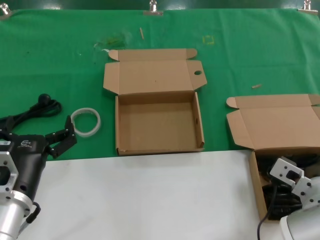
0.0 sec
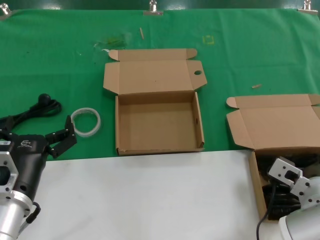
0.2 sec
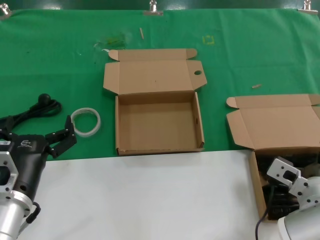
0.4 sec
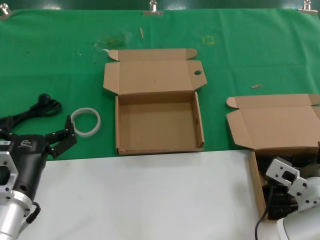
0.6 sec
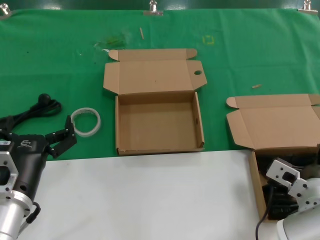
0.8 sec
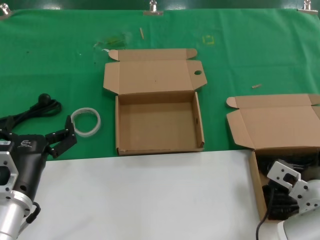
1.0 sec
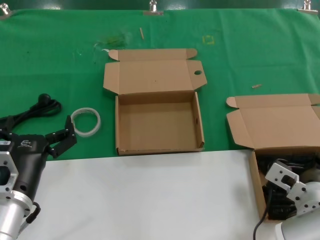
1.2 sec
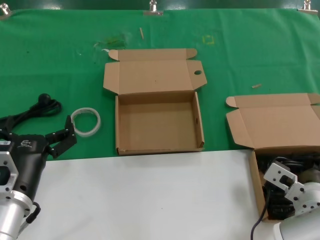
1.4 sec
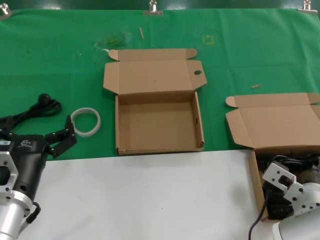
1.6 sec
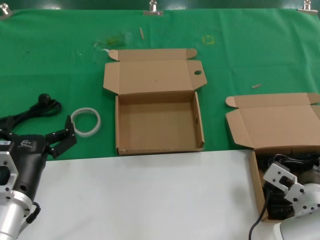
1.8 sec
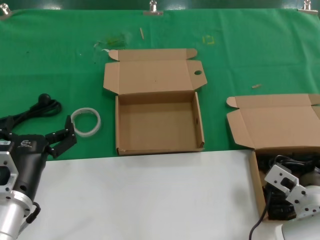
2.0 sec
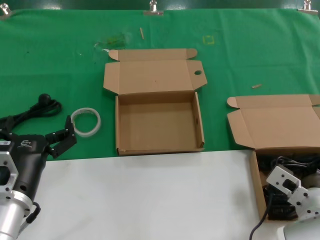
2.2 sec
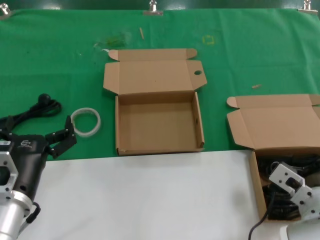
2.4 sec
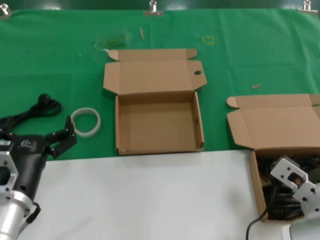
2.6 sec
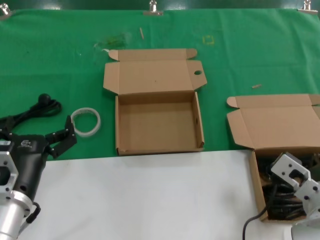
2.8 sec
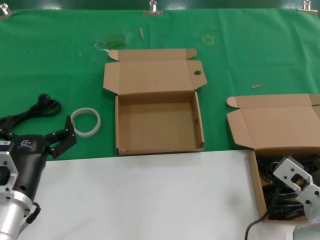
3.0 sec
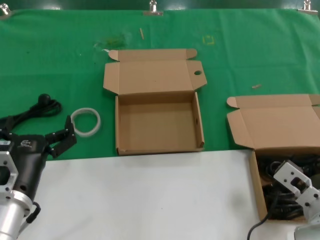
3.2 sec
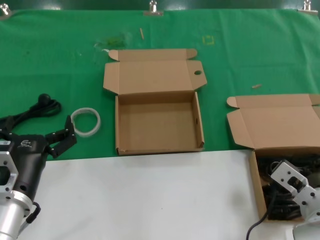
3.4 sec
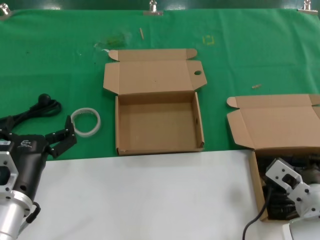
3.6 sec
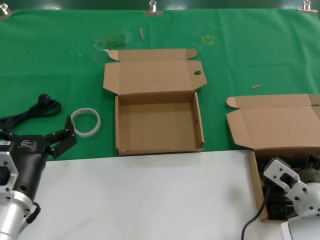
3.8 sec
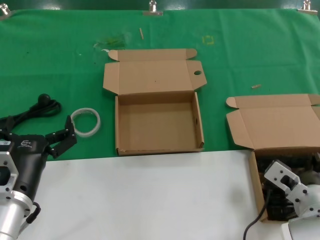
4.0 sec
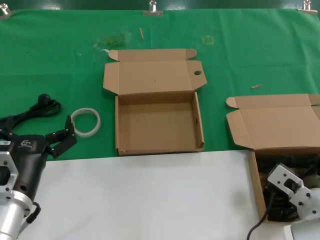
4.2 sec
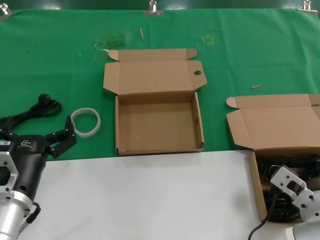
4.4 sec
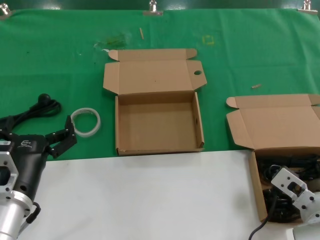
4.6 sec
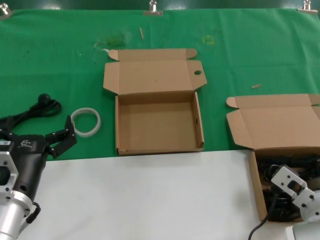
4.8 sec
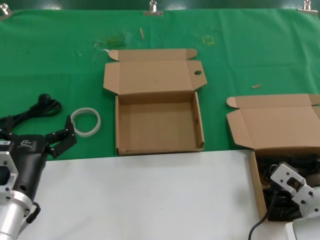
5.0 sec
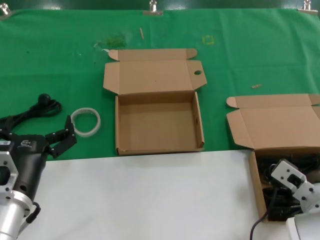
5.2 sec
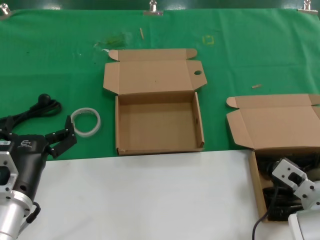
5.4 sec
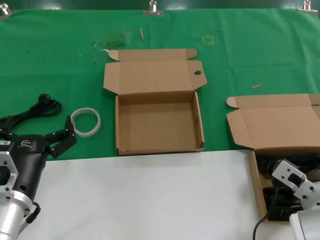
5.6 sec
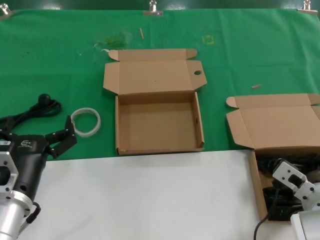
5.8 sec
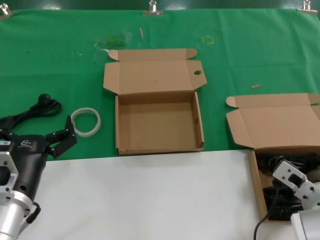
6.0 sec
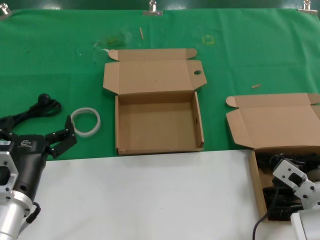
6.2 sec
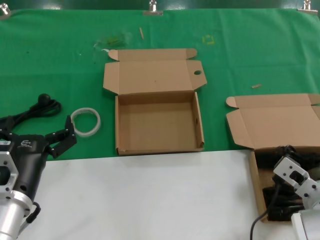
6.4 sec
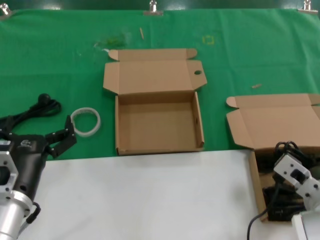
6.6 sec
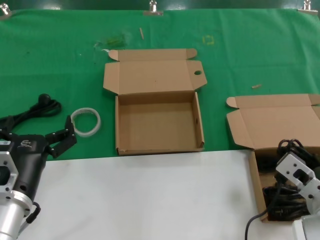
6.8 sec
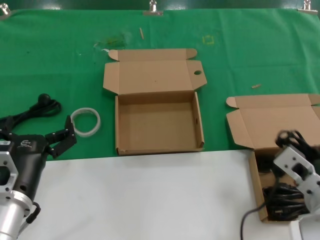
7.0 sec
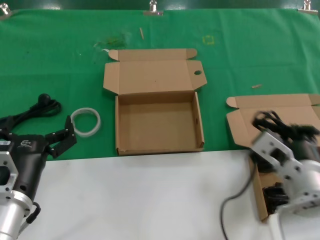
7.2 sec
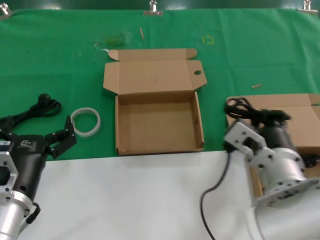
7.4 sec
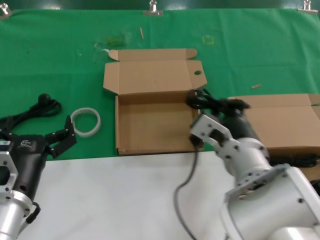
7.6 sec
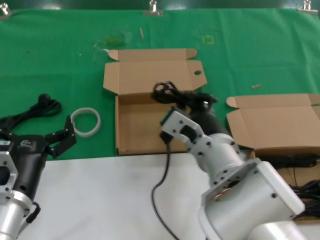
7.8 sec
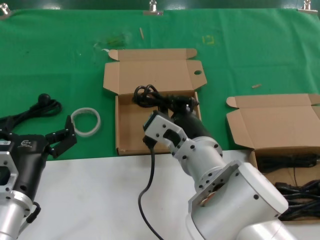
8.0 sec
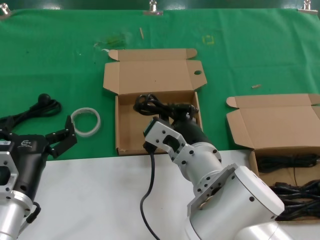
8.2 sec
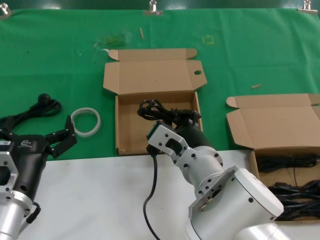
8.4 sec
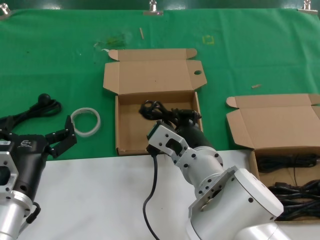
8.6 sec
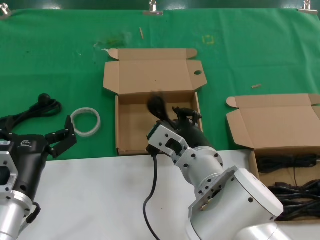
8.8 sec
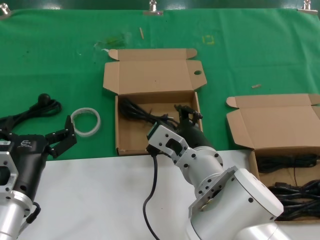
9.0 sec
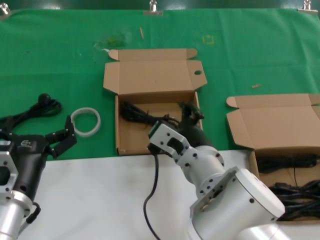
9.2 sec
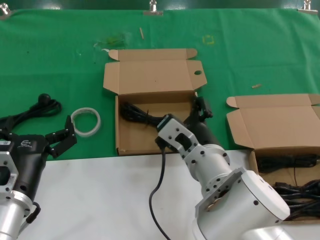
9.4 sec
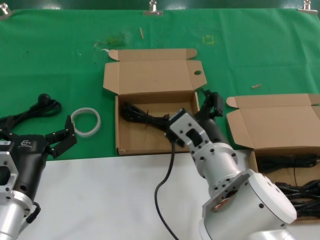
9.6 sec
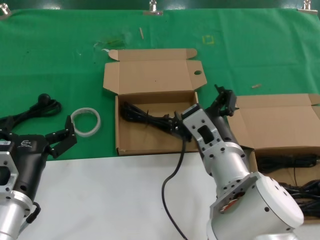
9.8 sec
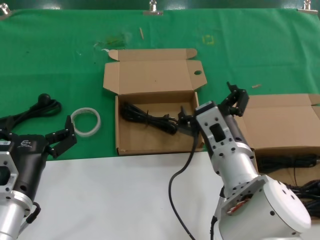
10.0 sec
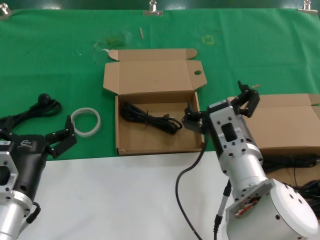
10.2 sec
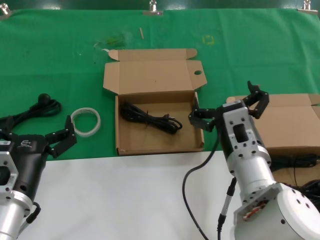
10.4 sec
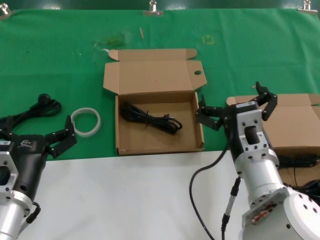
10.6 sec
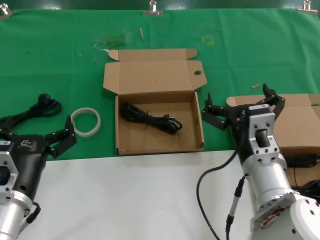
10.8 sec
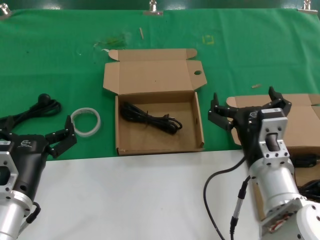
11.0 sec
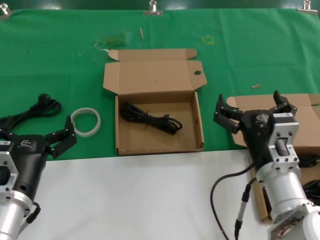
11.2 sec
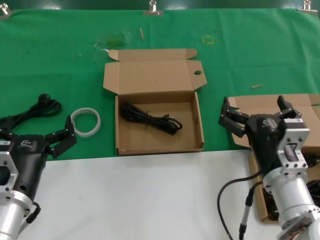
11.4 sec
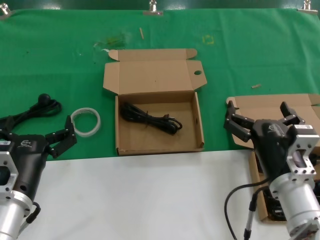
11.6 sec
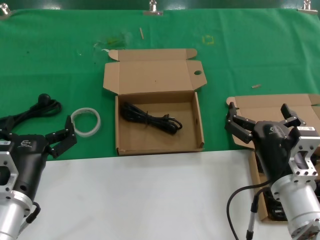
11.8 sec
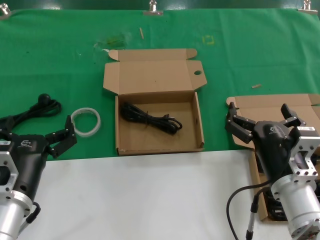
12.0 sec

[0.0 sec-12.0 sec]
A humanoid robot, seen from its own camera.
Task of the whole recording: take the parts from the box containing them and put them into an empty box.
Step, 0.0 sec to 6.4 sec: Grasp the data cable.
Step, 6.6 sec to 9.2 sec: Place the data cable in the another box.
0.0 sec to 1.6 sec: The hands make only small movements.
1.6 sec to 3.0 sec: The right hand shifts roughly 5 cm upward.
3.0 sec to 4.4 sec: The right hand moves roughly 5 cm.
4.4 sec to 6.0 sec: The hands stay close to where they were, moving slightly.
6.0 sec to 7.6 sec: The right hand moves to the left and upward, about 20 cm.
7.6 sec to 9.0 sec: The right hand is displaced to the left by some 5 cm.
9.0 sec to 10.4 sec: The right hand travels to the right by some 5 cm.
10.4 sec to 12.0 sec: The right hand travels to the right by roughly 10 cm.

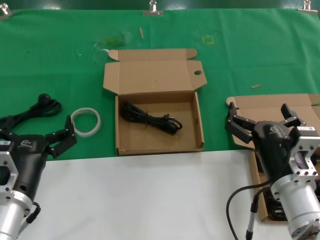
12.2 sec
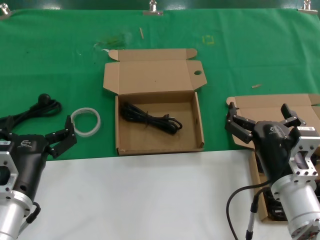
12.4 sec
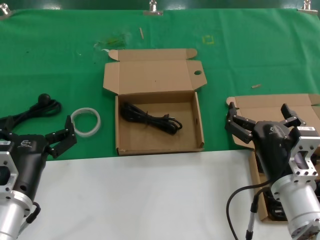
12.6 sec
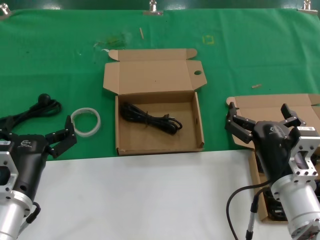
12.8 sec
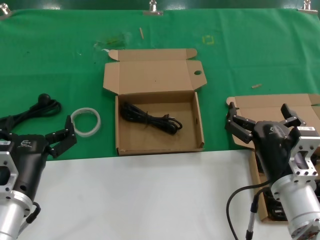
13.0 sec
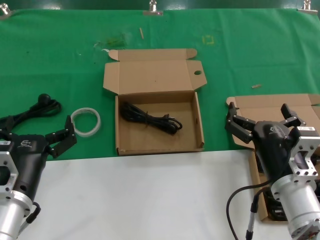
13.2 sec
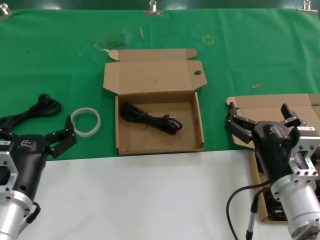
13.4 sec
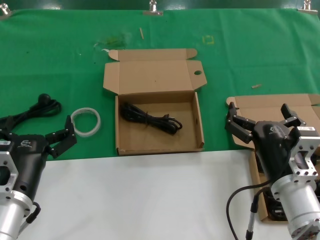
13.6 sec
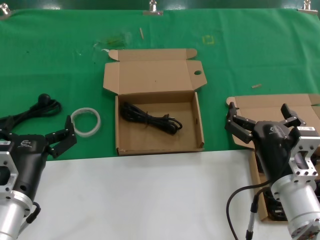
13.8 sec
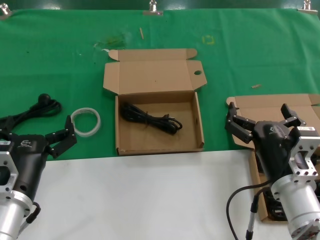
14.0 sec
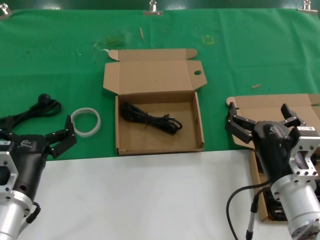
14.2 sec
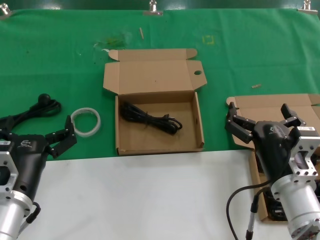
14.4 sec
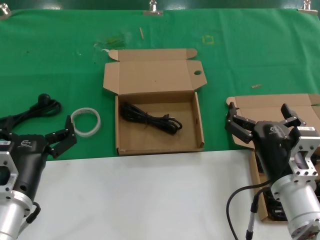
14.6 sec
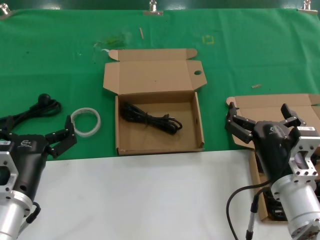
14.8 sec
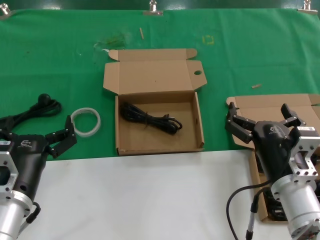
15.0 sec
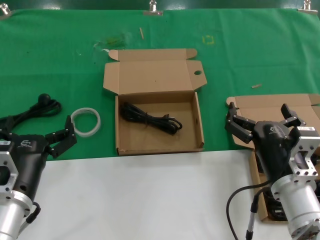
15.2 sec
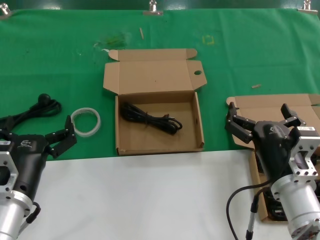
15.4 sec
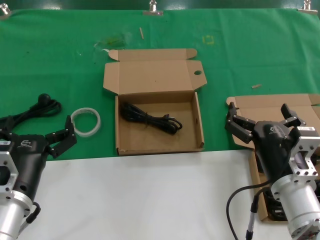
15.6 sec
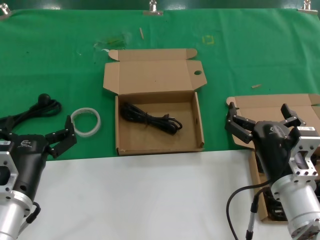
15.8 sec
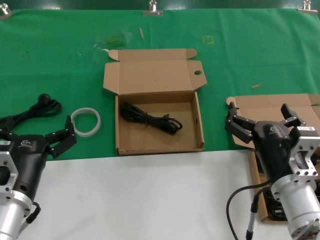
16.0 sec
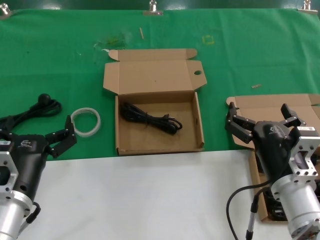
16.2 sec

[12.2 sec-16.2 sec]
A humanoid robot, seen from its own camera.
Task of the whole recording: take the parts from the box containing them and put them into an empty box.
12.2 sec to 16.2 sec: The two hands keep their place.

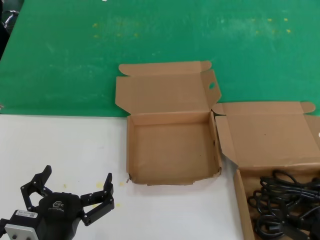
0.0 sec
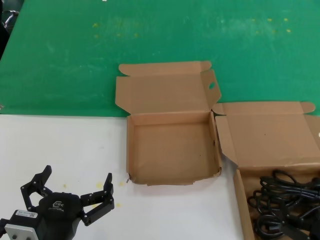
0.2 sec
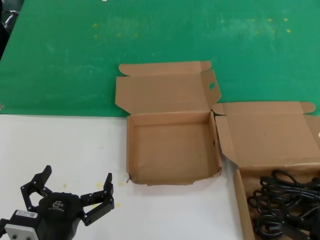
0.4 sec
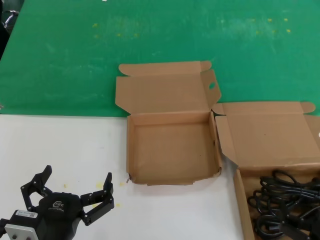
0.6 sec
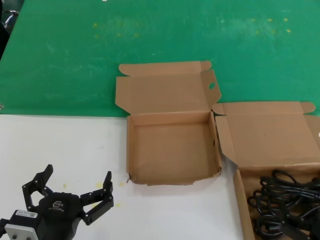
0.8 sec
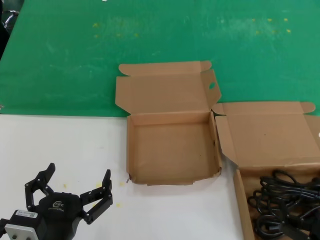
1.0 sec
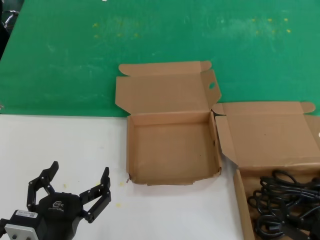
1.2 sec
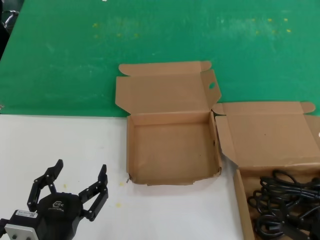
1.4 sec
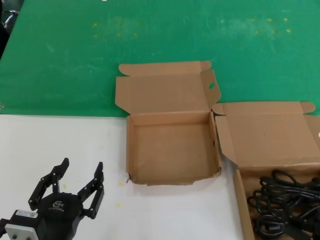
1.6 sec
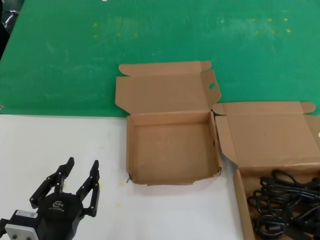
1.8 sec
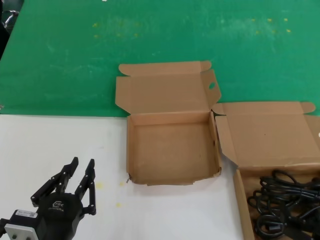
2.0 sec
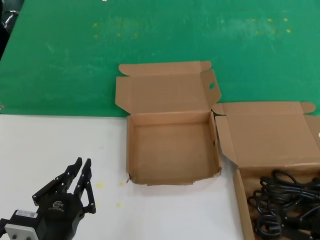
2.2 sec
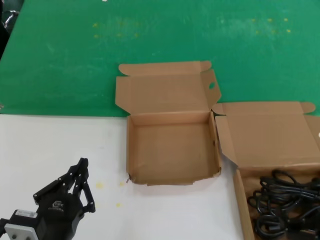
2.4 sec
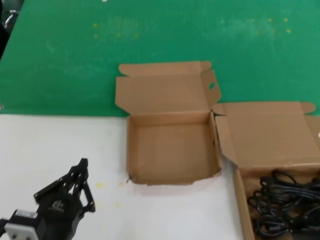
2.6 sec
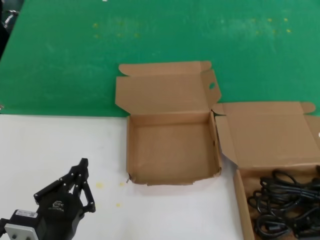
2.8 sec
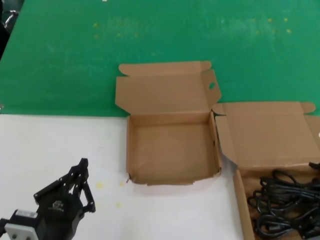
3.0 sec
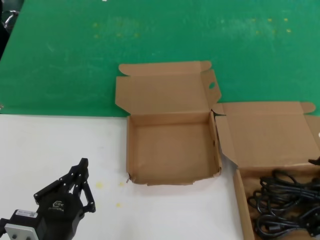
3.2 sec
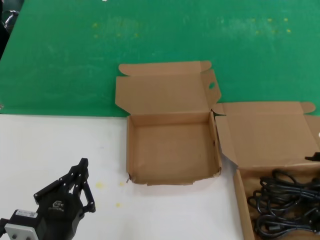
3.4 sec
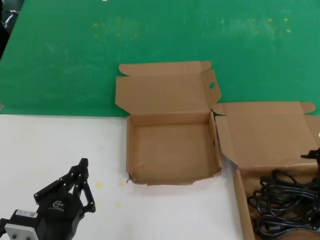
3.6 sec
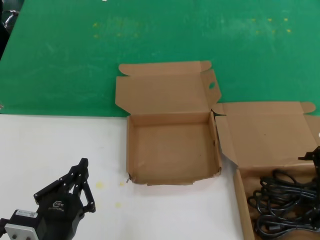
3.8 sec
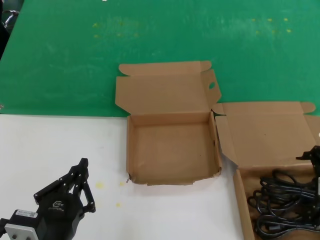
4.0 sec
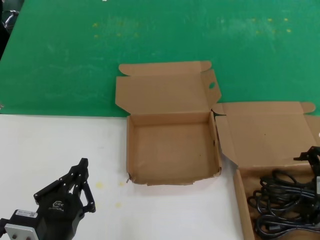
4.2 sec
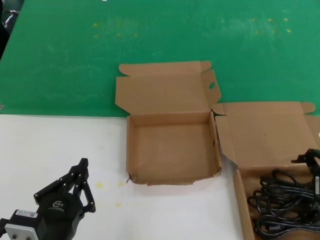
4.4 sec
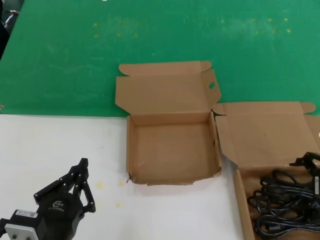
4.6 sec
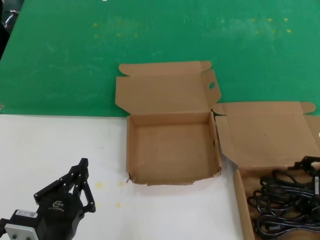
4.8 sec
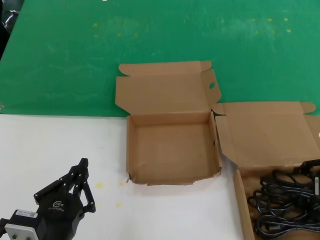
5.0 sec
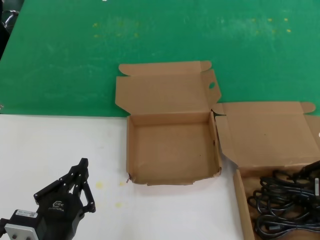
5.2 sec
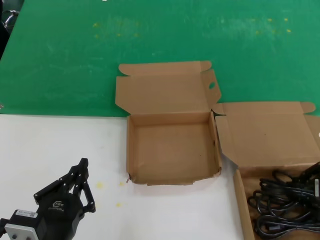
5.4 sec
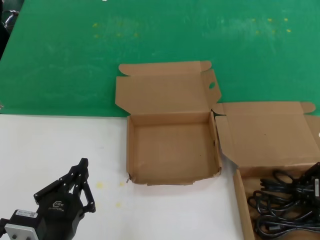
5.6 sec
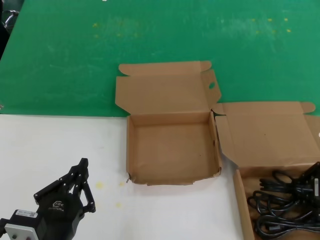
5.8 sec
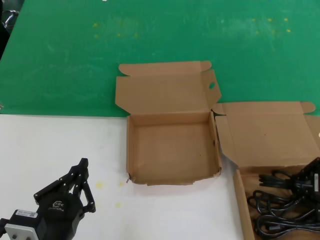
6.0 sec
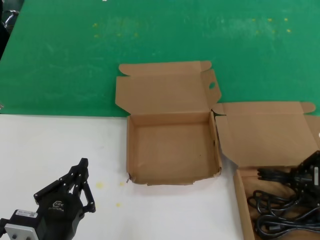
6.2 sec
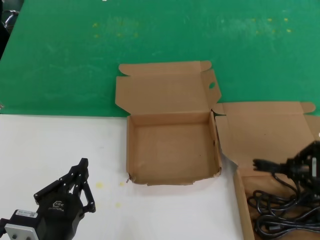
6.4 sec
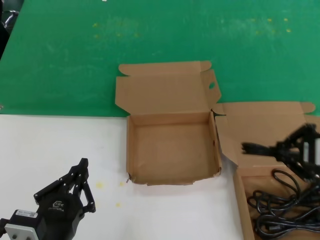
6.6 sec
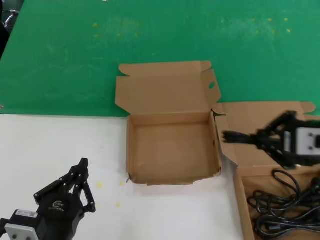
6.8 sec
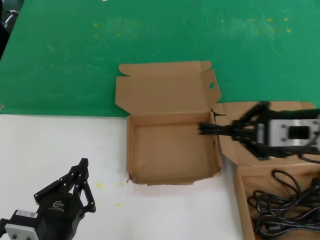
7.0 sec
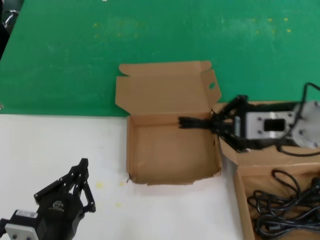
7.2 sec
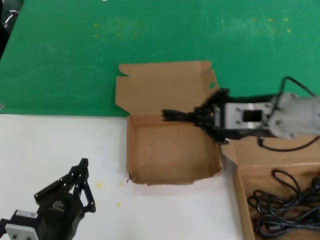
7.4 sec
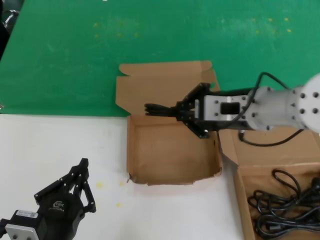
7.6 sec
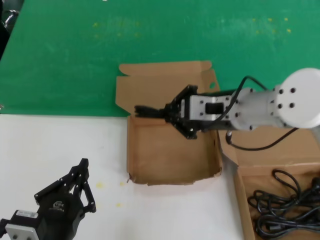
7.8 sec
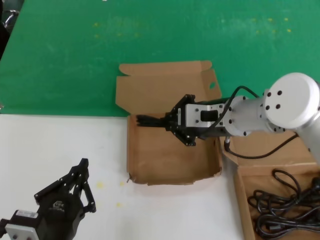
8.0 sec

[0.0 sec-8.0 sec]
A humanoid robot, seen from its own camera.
Task of the whole recording: take the parts from the box containing them and put them into an empty box.
Step, 0.0 sec to 5.6 sec: Grasp the data cable.
0.0 sec to 1.6 sec: Both hands stay about where they are.
1.6 sec to 3.2 sec: The right hand heads upward, to the right and forward, covering about 20 cm.
3.2 sec to 4.8 sec: The right hand moves forward, about 5 cm.
4.8 sec to 6.4 sec: The hands stay close to where they were, moving slightly.
6.4 sec to 8.0 sec: The right hand heads to the left and forward, covering roughly 25 cm.
